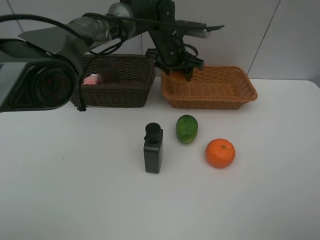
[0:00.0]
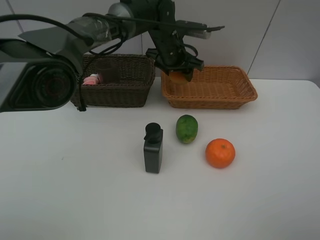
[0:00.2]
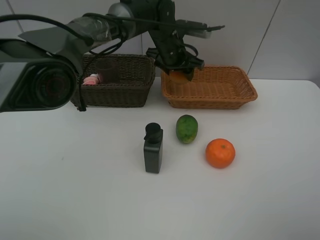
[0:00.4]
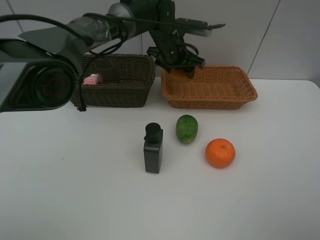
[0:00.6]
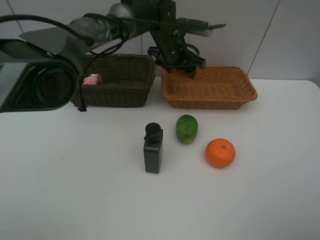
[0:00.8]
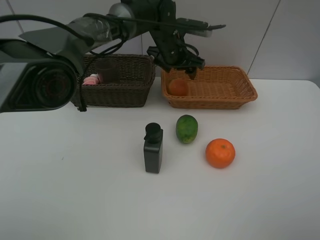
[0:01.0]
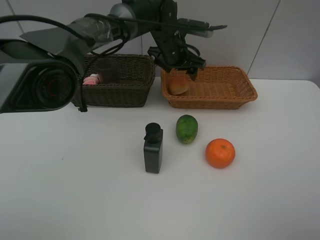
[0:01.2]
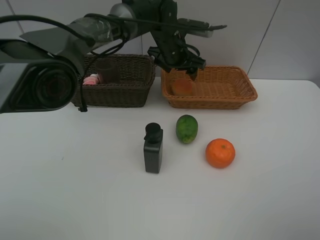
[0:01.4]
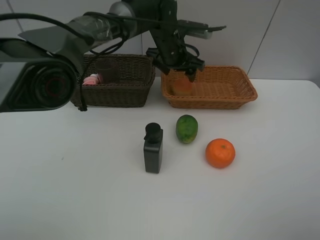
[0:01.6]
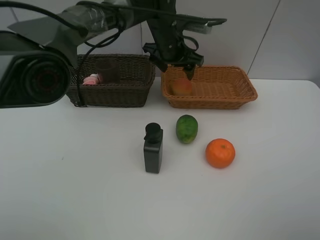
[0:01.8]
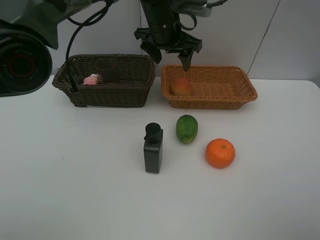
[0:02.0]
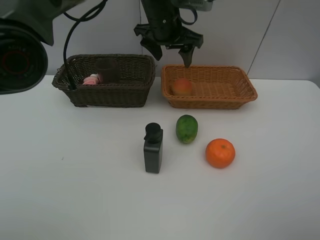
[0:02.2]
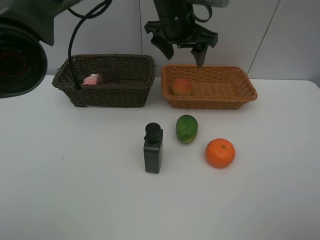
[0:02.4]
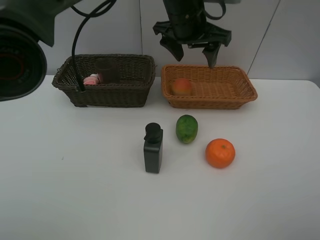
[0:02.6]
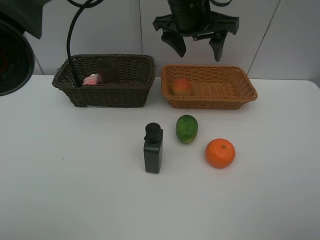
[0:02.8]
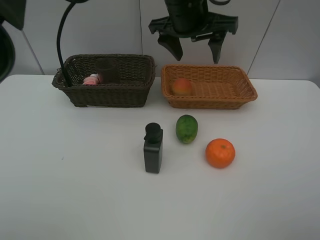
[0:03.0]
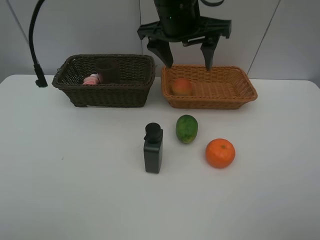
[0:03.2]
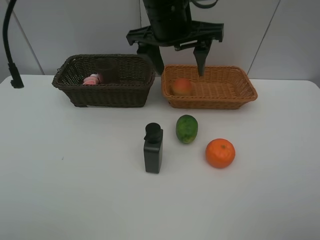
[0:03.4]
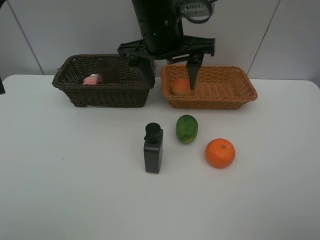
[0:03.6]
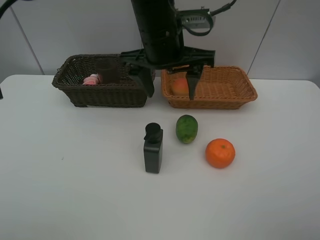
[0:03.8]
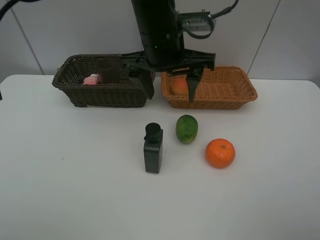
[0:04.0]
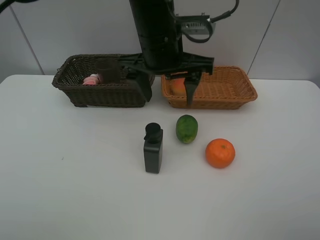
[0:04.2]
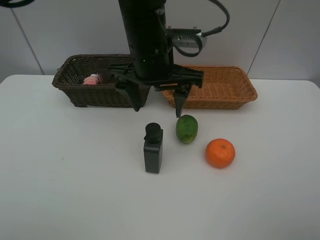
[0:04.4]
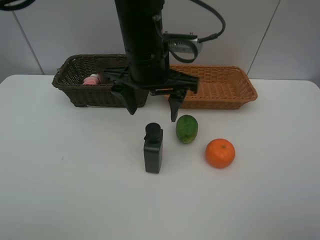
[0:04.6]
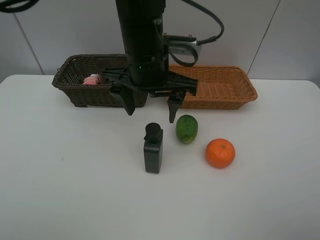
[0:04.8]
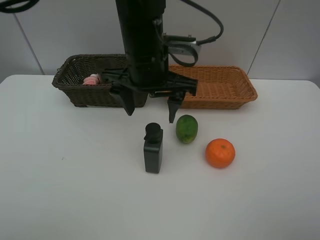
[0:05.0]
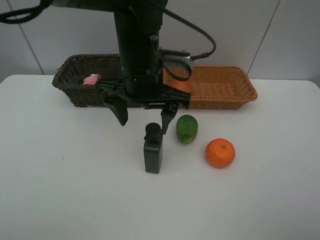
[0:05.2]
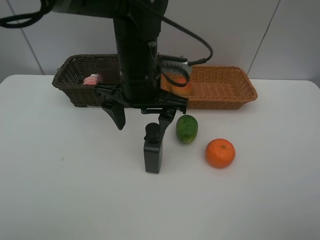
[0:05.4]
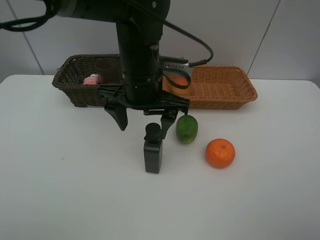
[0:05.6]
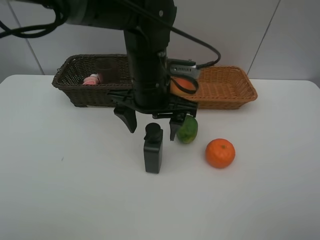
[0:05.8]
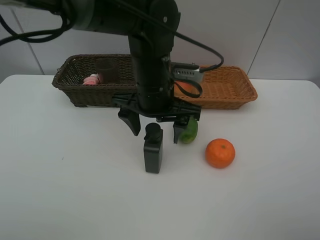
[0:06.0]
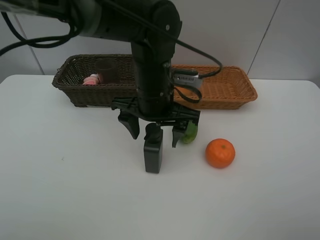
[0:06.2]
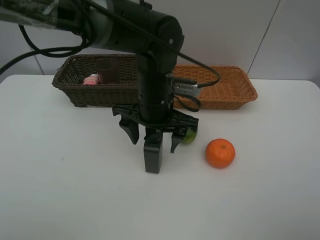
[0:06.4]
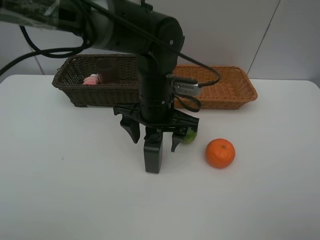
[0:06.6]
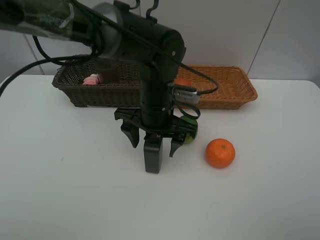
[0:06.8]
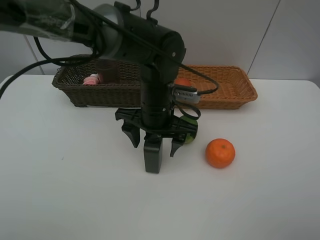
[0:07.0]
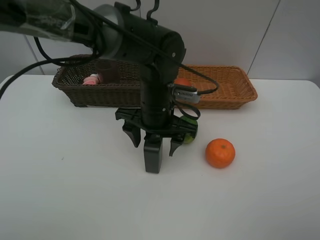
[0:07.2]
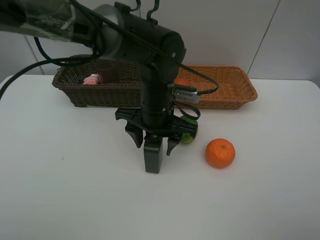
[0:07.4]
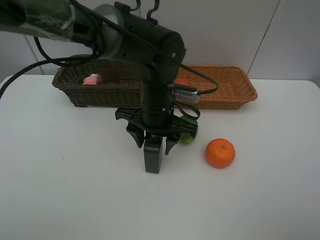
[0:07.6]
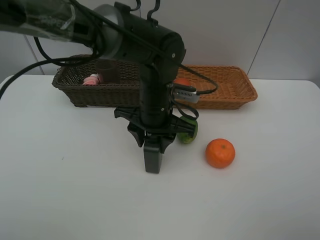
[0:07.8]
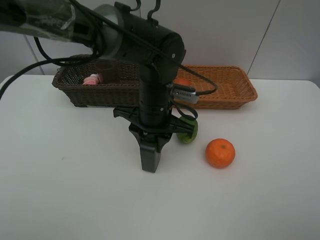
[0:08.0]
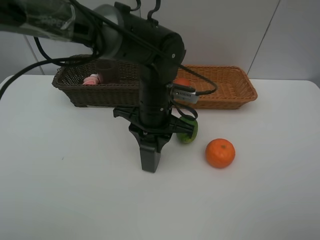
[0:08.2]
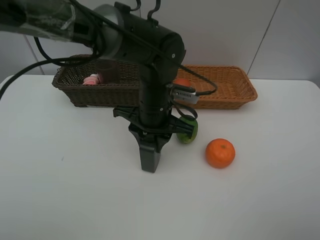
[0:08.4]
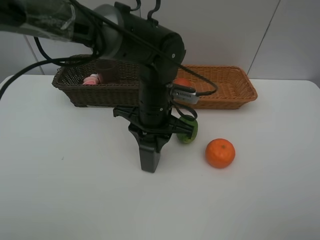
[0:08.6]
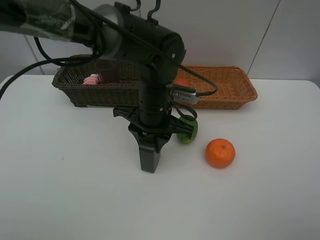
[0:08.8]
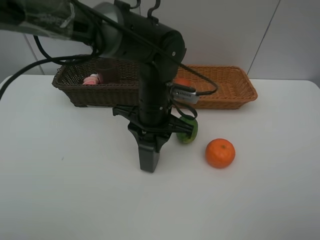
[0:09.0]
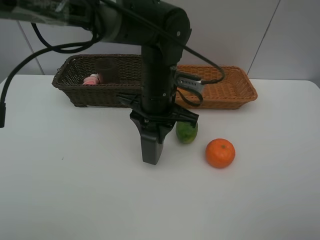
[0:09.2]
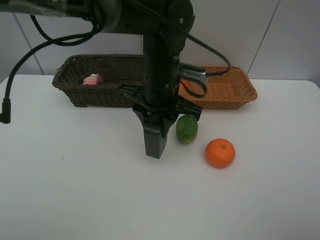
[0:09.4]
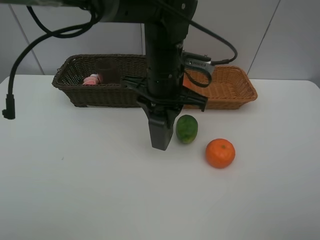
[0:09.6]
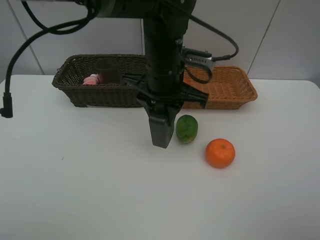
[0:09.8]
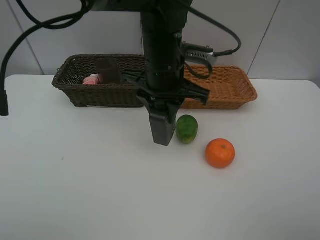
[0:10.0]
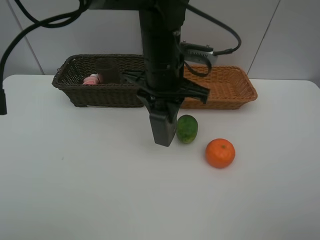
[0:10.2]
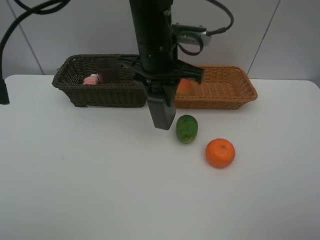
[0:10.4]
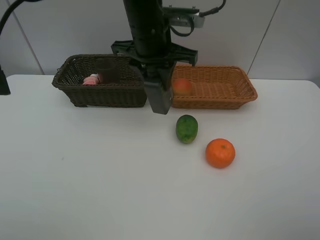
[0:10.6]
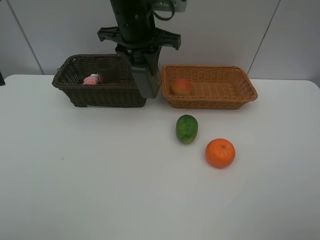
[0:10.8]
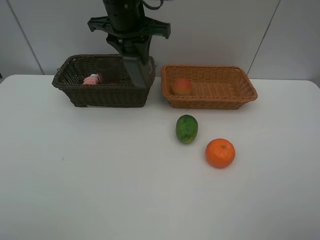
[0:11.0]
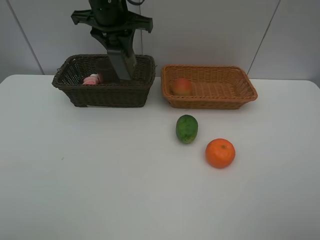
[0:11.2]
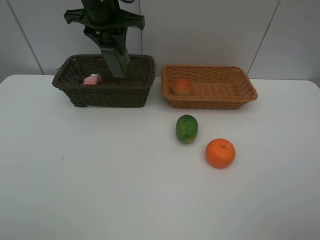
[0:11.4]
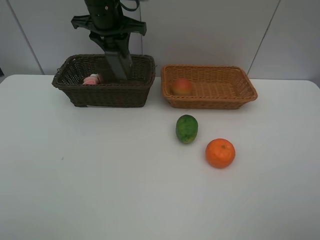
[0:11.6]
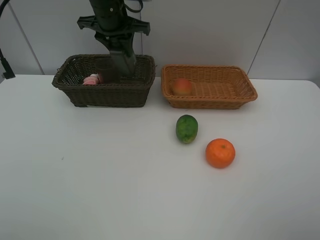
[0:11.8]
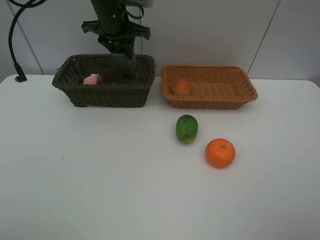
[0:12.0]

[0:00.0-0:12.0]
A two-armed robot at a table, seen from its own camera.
Task of the whole recording: place multiple objects separately in different baskets.
0:00.0 to 0:01.6: Neither gripper changes place.
0:01.6 to 0:03.0: The left gripper is displaced upward and backward by about 15 cm.
0:03.0 to 0:04.4: The left gripper goes about 5 cm backward.
0:04.4 to 0:06.0: The left gripper moves downward, roughly 5 cm.
0:06.0 to 0:07.6: The grippers make only small movements.
0:07.6 to 0:09.0: Both grippers stay put.
0:09.0 to 0:10.4: The left gripper heads upward, covering some 10 cm.
0:10.4 to 0:12.0: The left gripper goes some 15 cm forward and to the left.

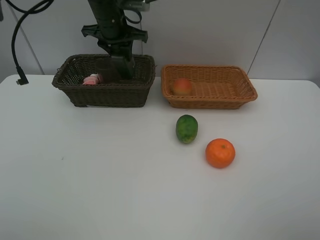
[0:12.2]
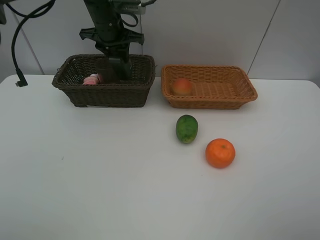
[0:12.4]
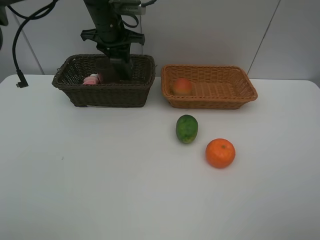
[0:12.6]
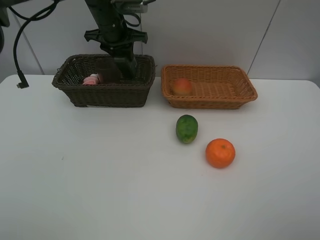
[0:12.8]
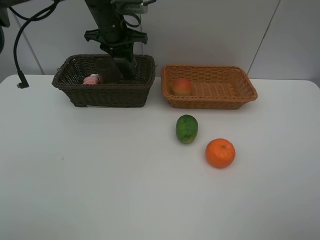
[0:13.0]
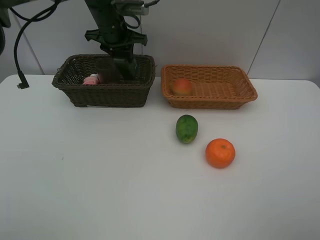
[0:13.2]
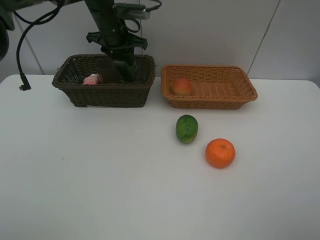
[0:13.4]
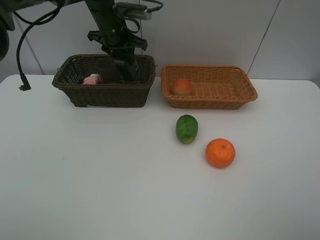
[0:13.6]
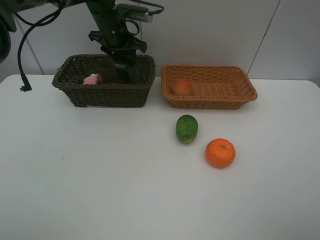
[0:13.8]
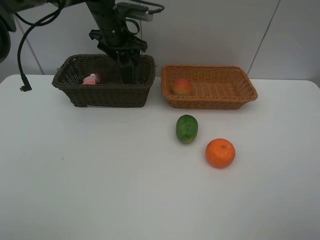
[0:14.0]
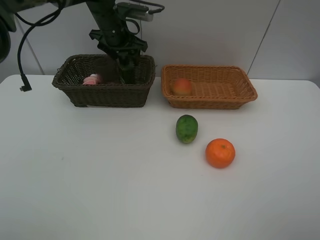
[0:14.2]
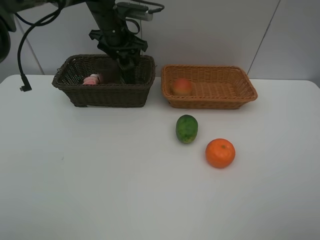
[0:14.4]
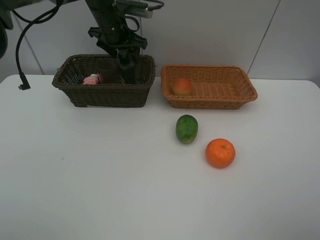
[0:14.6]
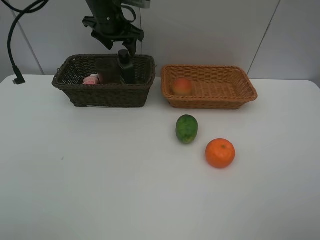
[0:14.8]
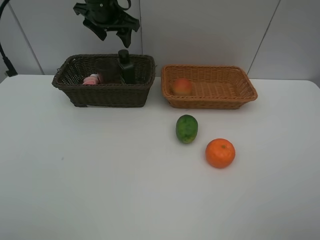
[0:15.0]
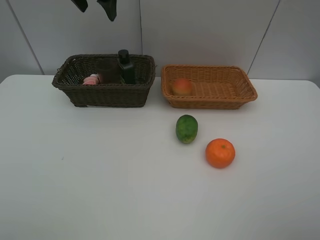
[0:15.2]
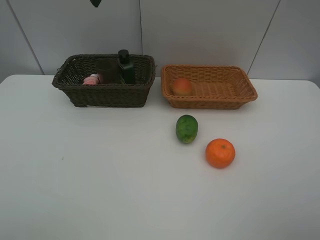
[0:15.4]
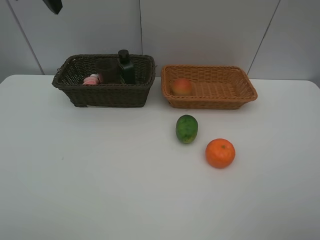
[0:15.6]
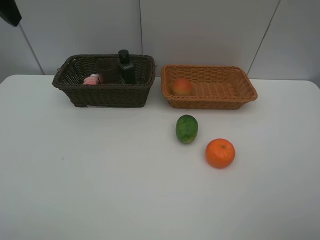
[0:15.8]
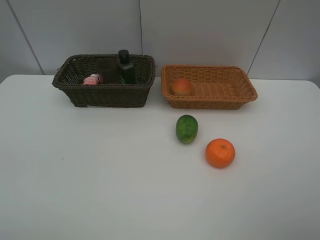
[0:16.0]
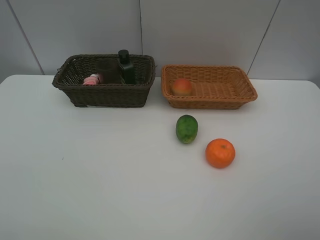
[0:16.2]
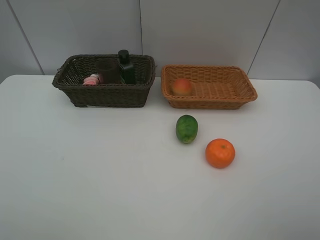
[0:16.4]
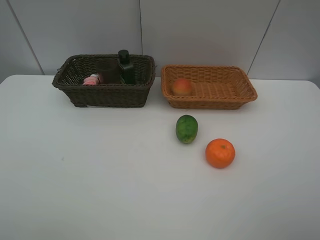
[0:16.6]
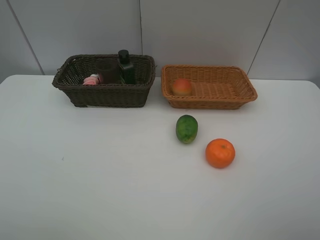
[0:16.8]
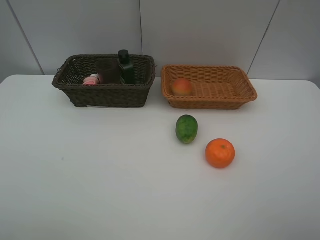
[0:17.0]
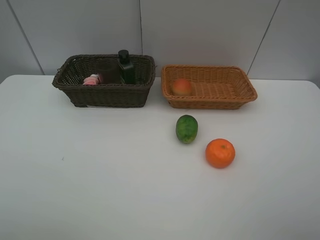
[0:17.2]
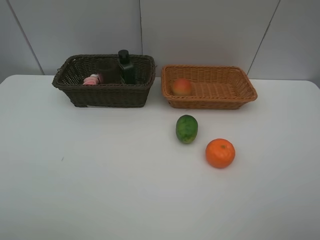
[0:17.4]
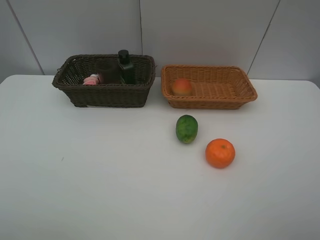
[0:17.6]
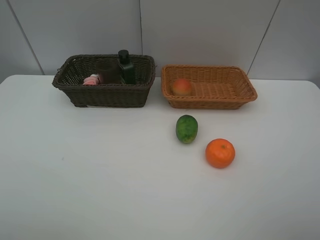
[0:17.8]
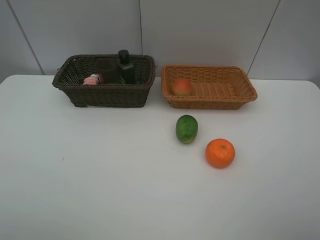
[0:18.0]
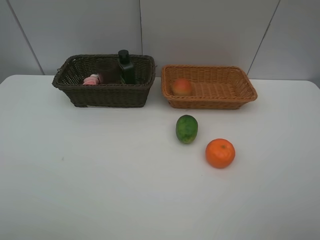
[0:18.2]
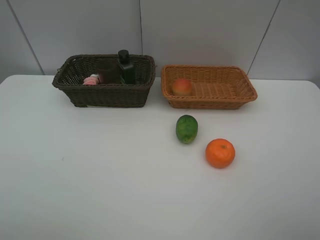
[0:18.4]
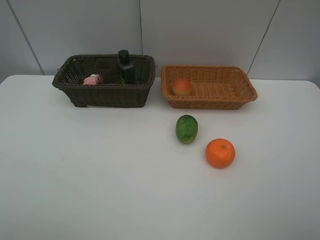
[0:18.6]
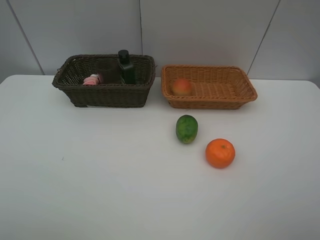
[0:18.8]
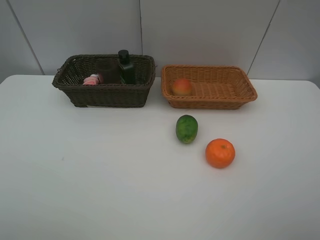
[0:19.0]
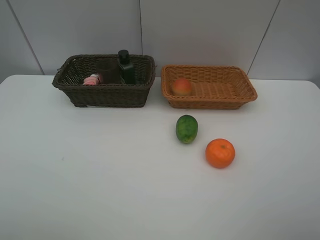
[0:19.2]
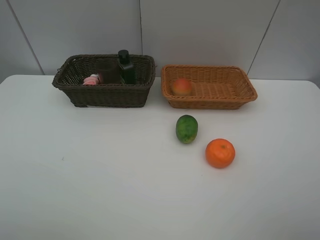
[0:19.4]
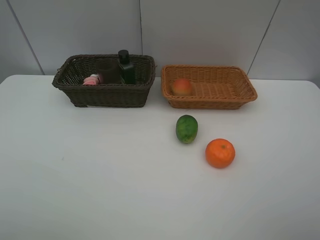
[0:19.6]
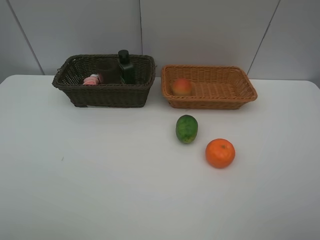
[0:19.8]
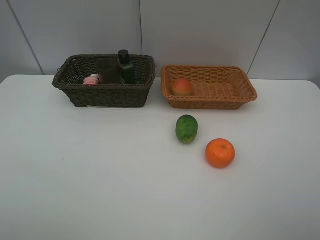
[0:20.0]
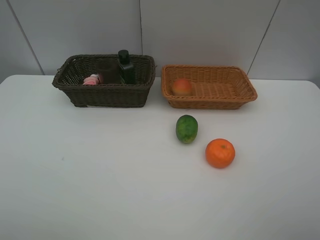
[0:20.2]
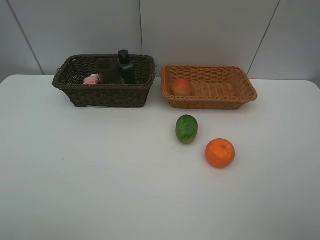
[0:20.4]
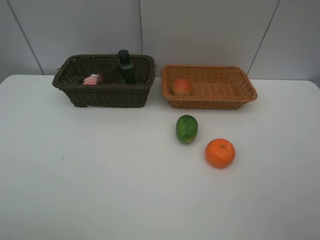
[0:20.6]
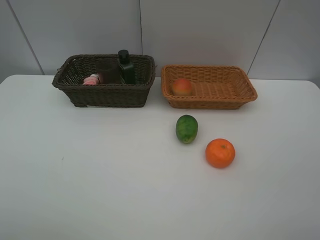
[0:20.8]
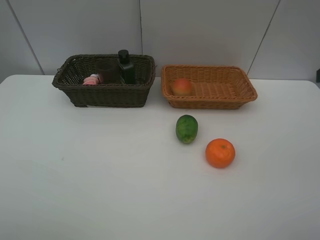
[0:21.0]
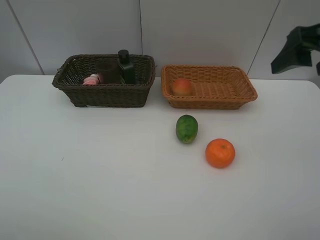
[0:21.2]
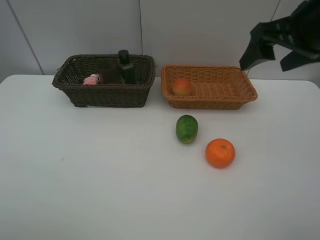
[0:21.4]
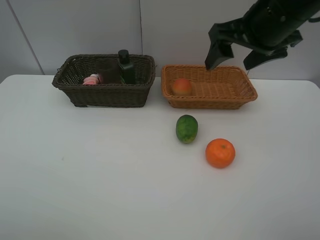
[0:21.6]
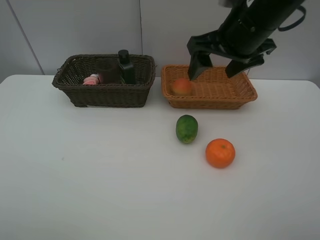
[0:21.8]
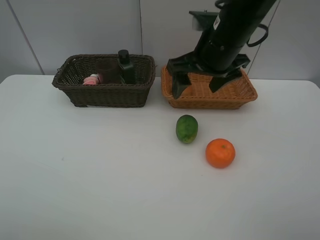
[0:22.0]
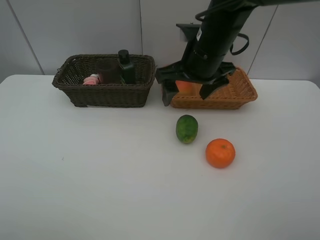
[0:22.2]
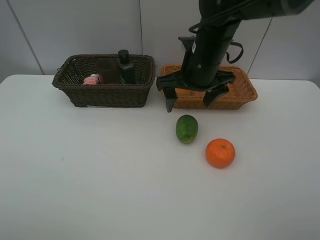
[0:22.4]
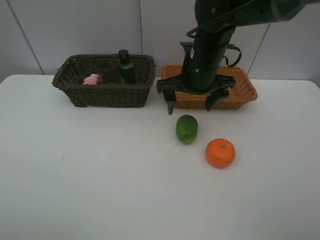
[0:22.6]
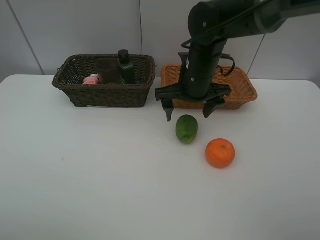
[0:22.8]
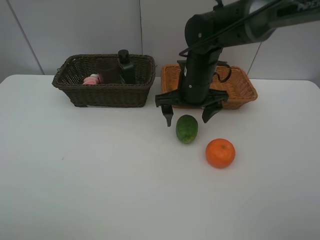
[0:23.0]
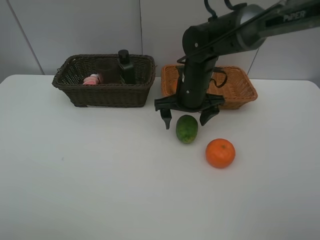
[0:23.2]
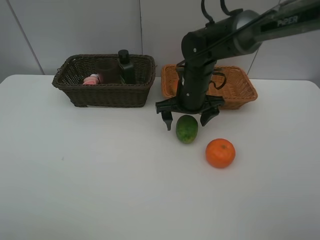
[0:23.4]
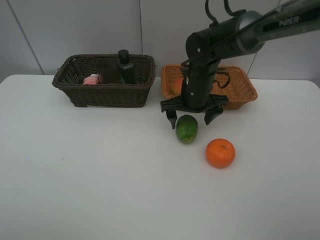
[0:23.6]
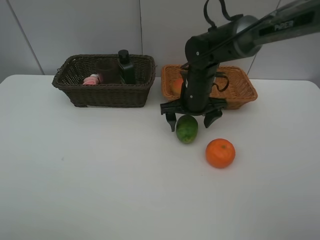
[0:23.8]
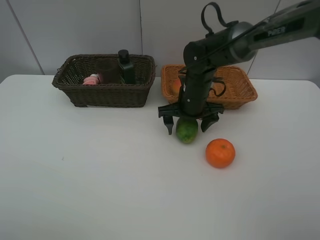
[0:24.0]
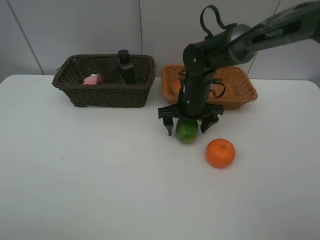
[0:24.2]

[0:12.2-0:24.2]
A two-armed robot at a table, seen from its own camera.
Task of the whole recording: place multiple objects separately in different baskets.
0:12.2 to 0:13.8: The grippers make only small movements.
0:13.8 to 0:15.2: The left gripper goes about 15 cm upward and backward.
0:18.2 to 0:19.8: Neither gripper changes place.
0:19.8 to 0:21.2: The right gripper travels forward by approximately 25 cm.
0:21.2 to 0:22.6: The right gripper moves to the left, downward and forward, approximately 25 cm.
0:22.6 to 0:24.2: The right gripper moves downward, some 10 cm.
